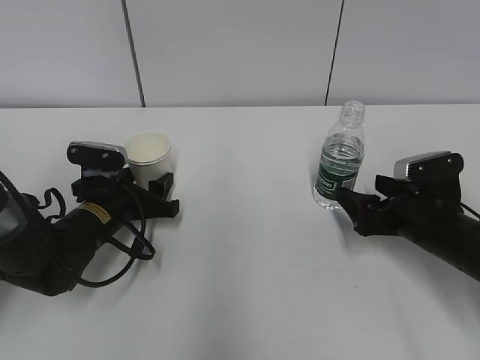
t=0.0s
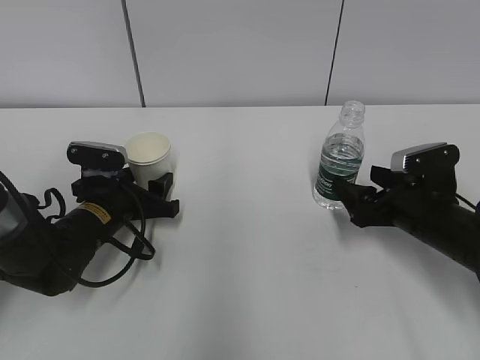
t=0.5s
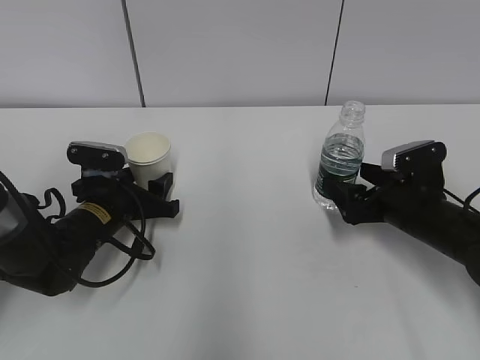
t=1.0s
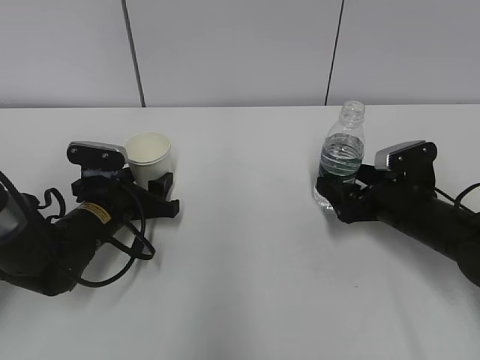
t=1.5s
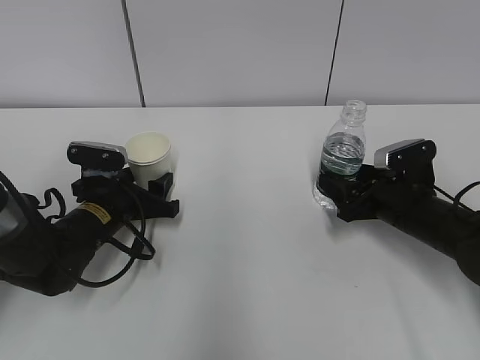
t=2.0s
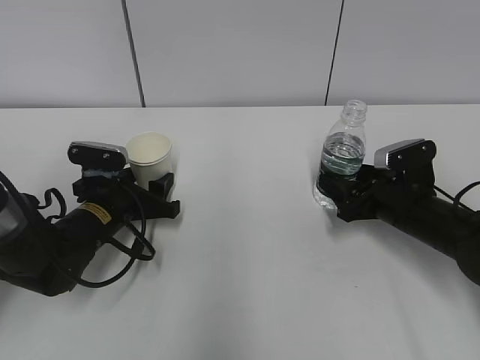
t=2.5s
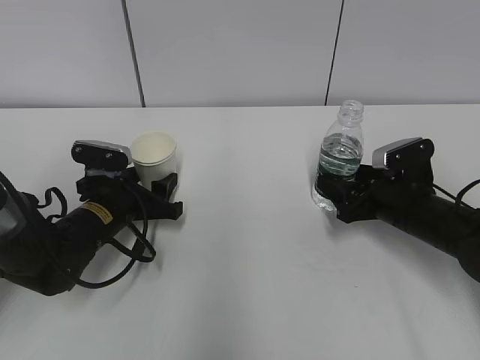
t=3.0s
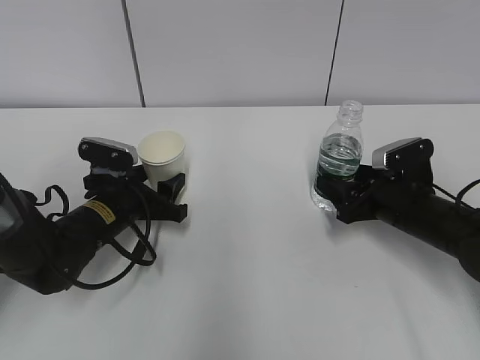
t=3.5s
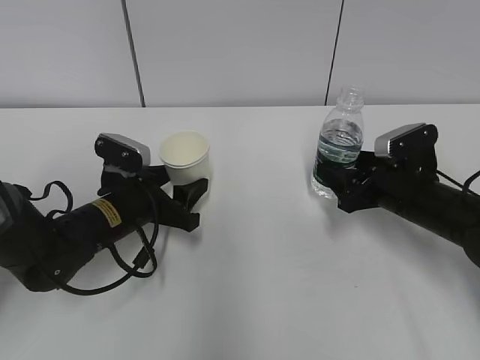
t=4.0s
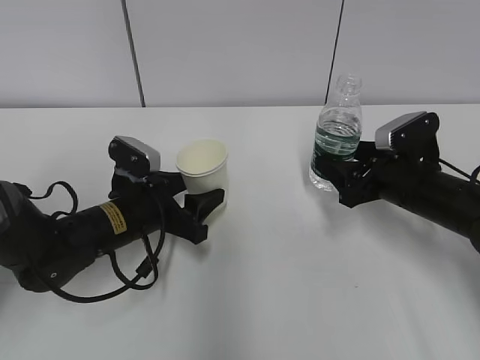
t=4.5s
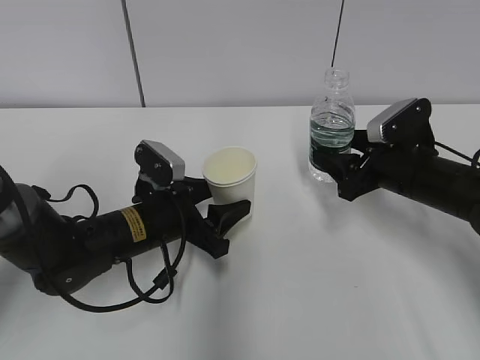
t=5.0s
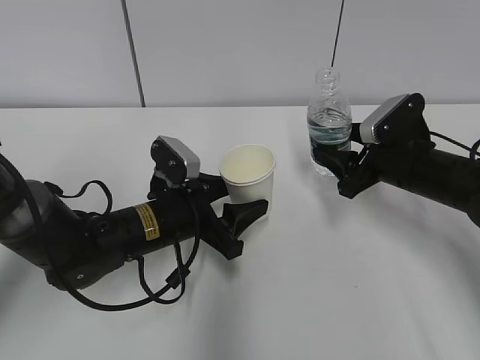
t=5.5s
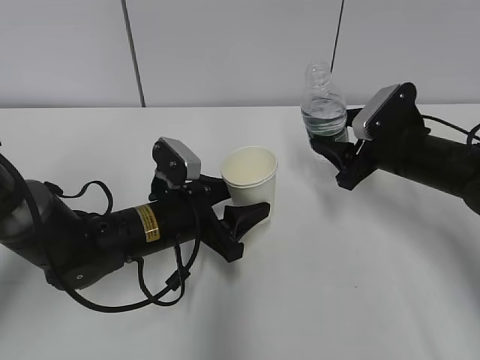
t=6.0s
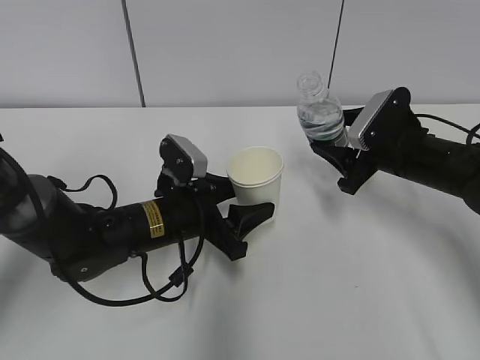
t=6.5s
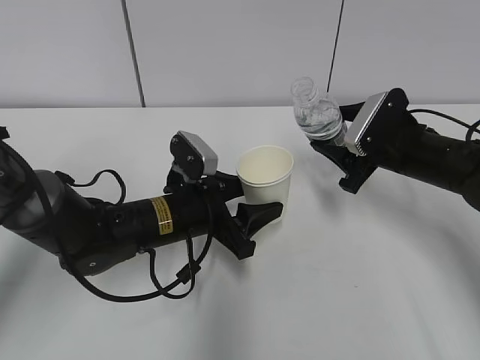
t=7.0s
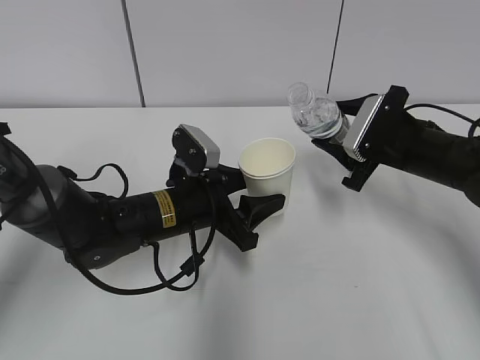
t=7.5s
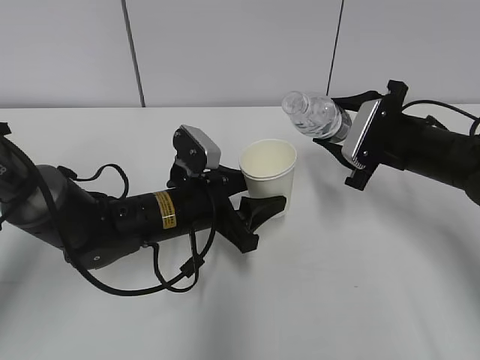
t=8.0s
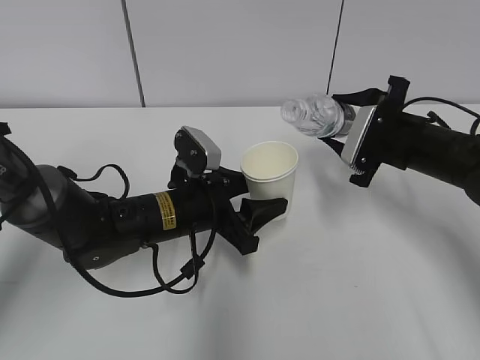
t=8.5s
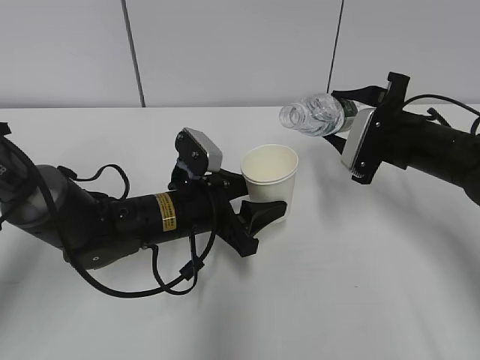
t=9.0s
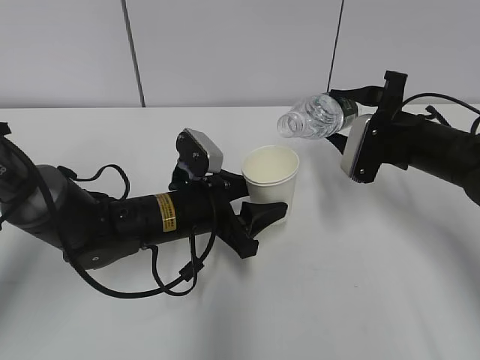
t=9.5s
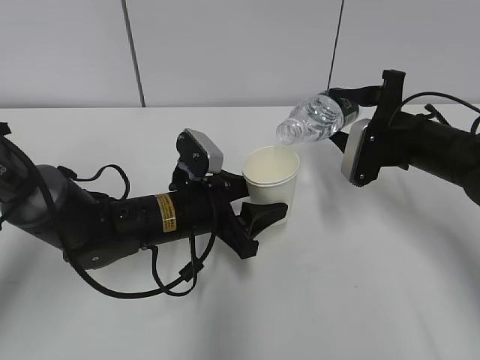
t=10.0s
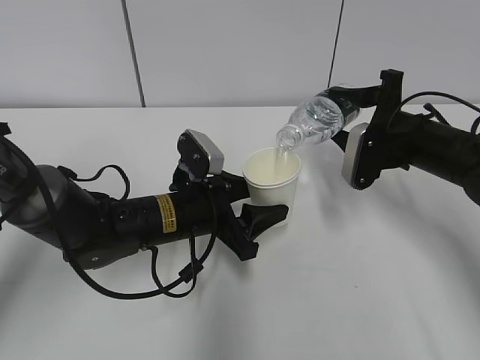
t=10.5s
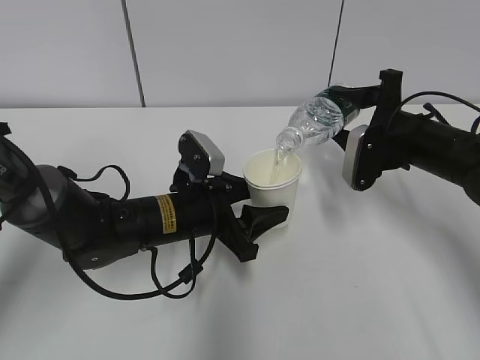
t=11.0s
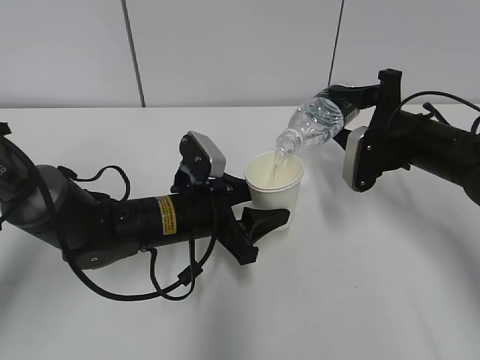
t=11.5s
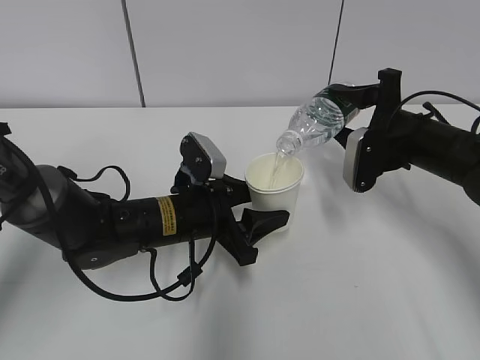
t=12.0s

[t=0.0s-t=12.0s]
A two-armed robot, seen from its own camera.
Step, t=1.5s to t=6.5s: Lift the paper cup with the left hand.
Step, t=7.0s to t=9.0s: Fill water with the left hand.
Step, t=7.0s to t=9.0s: Pour water with the right hand.
Step, t=9.5s to t=11.0s: Collect water with the right hand.
t=0.0s to t=2.0s: The right gripper closes its fingers.
t=2.0s to t=4.0s: The grippers move only a little.
t=4.0s to t=6.0s: The right gripper changes place by roughly 5 cm; the left gripper moves to the right, roughly 5 cm.
t=10.0s to t=12.0s: The grippers move only a little.

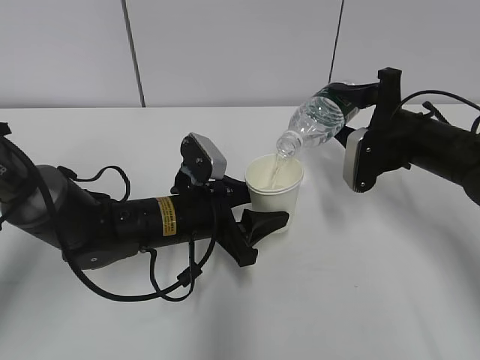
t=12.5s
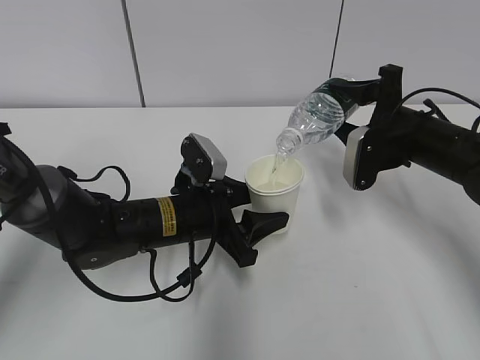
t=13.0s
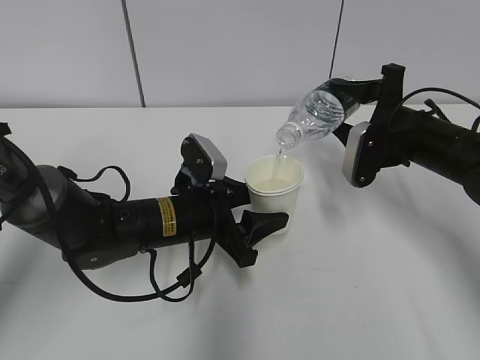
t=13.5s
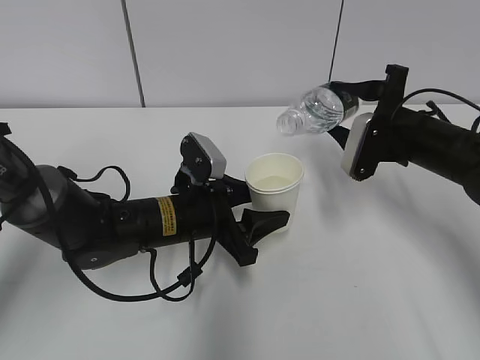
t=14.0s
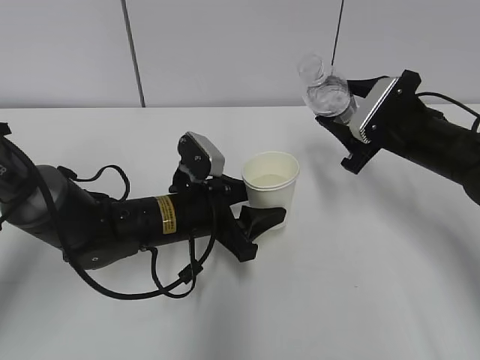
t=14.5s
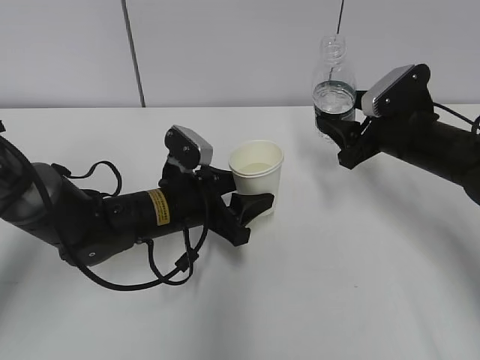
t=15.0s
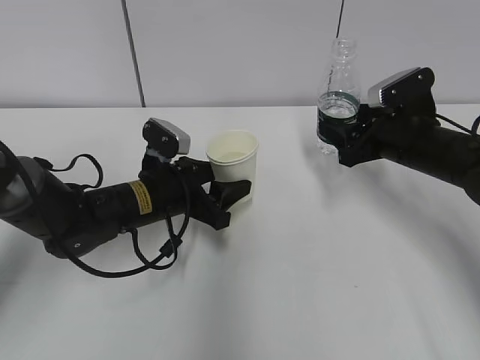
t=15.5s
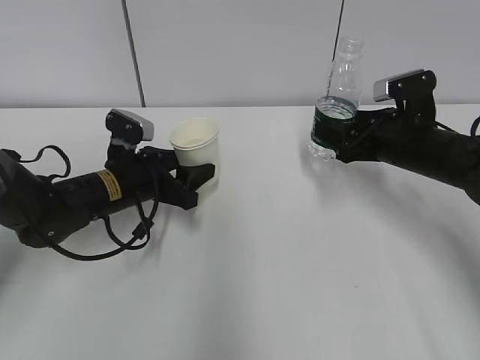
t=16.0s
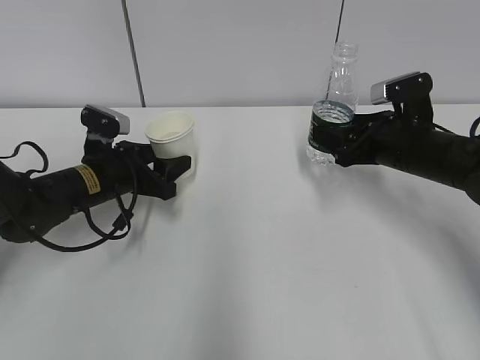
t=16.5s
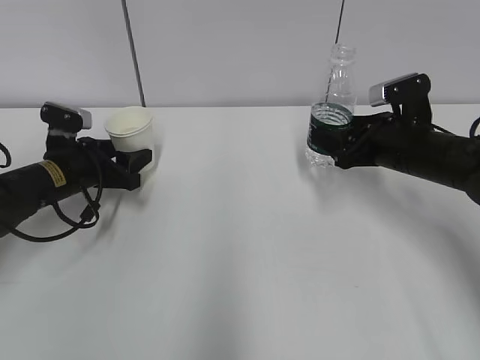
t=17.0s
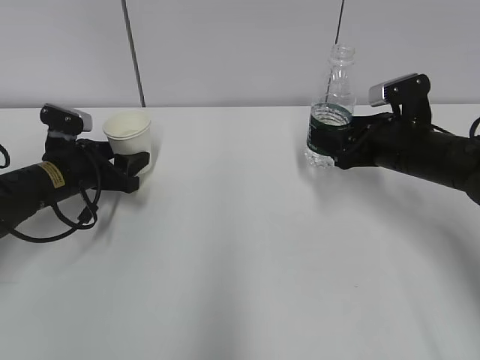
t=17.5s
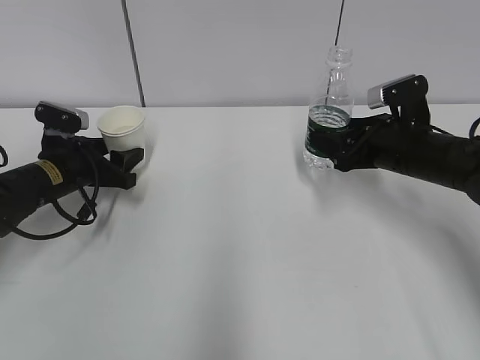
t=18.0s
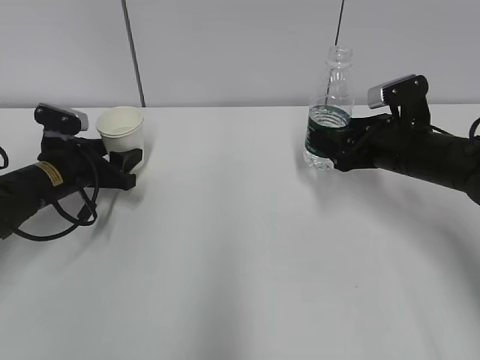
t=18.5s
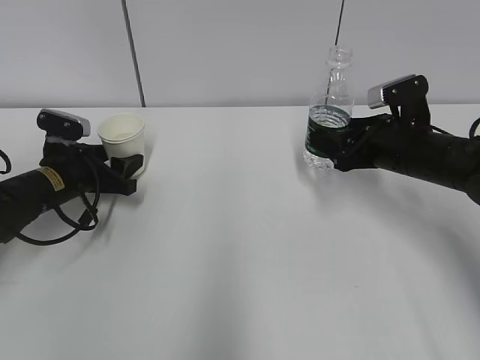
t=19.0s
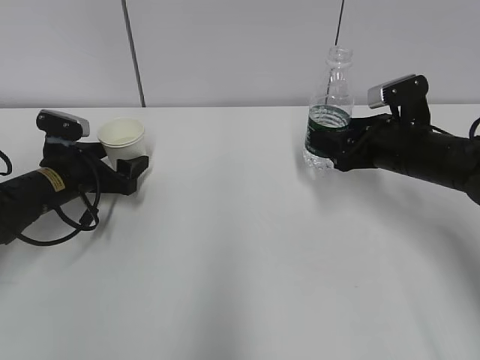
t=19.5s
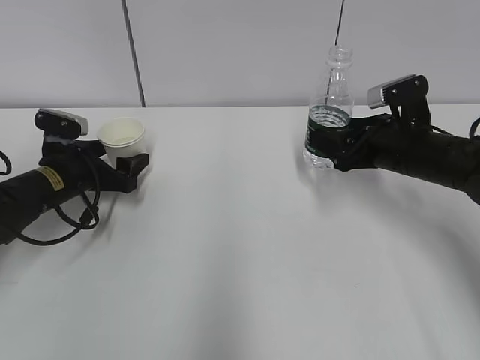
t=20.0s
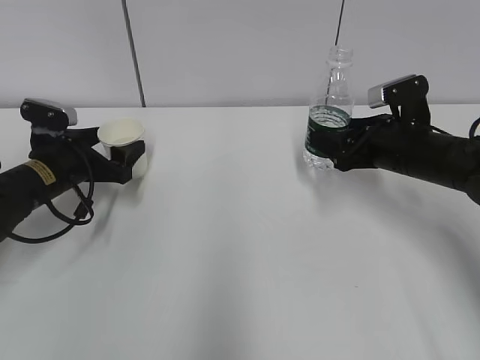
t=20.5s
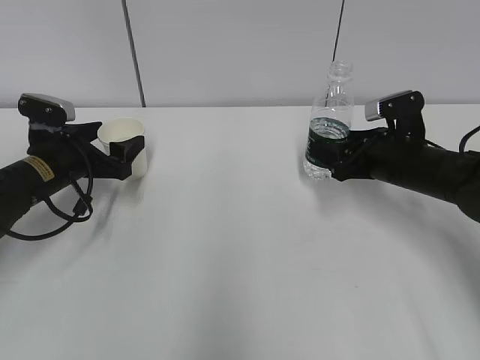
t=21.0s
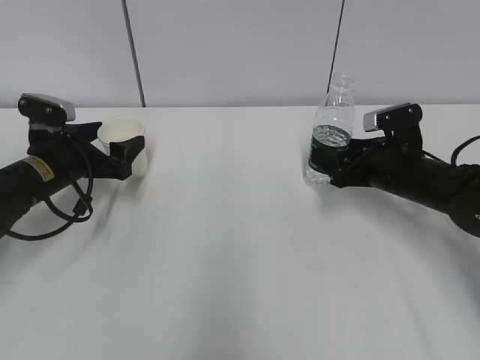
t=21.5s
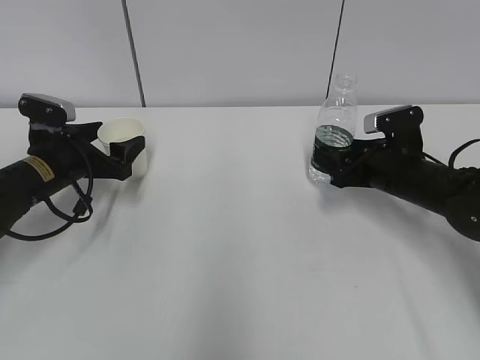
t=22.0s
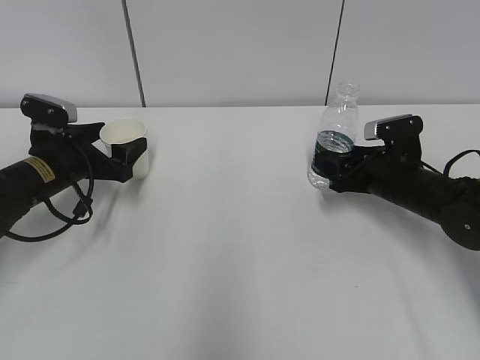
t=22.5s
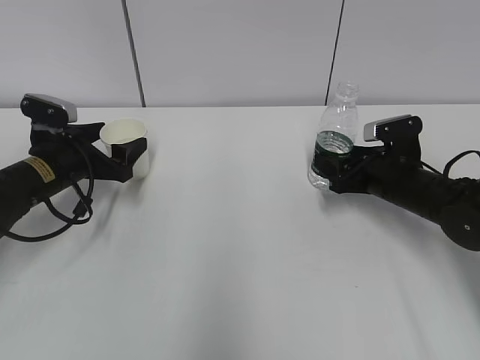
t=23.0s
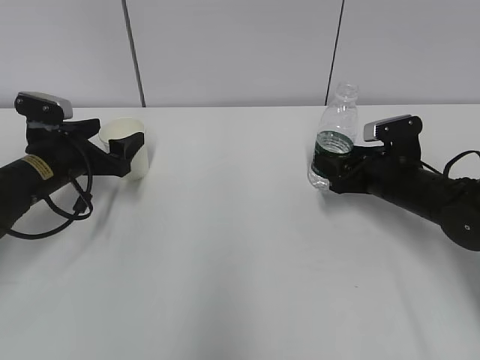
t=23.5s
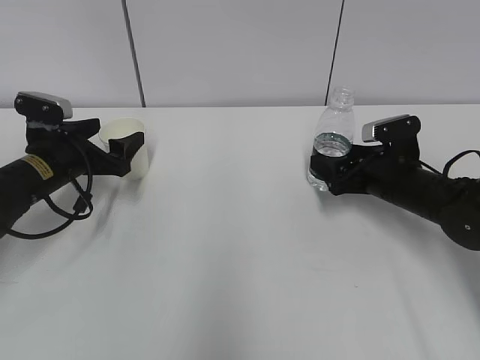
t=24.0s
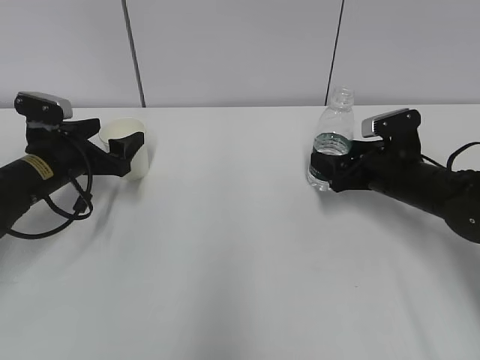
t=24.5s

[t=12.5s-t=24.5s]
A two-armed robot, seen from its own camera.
t=14.5s to t=16.5s: The left gripper moves to the left and forward, roughly 15 cm.
t=16.5s to t=18.5s: The left gripper shifts roughly 5 cm to the left.
t=18.5s to t=20.5s: The left gripper opens its fingers.
t=20.5s to t=22.5s: The right gripper travels downward by approximately 5 cm.
t=22.5s to t=24.5s: The right gripper opens up.

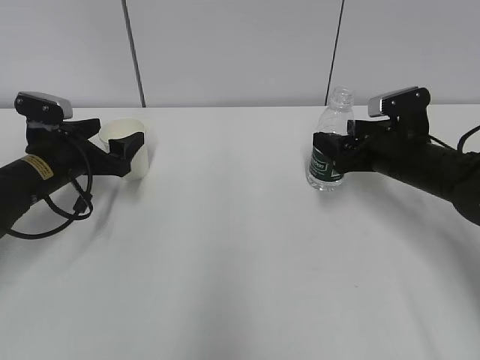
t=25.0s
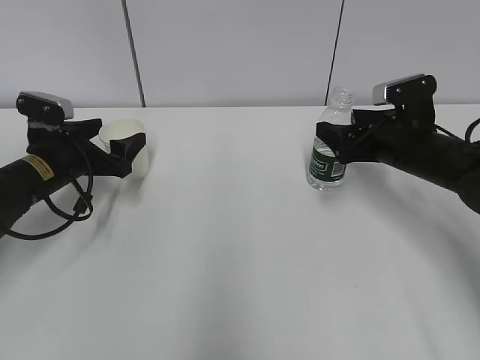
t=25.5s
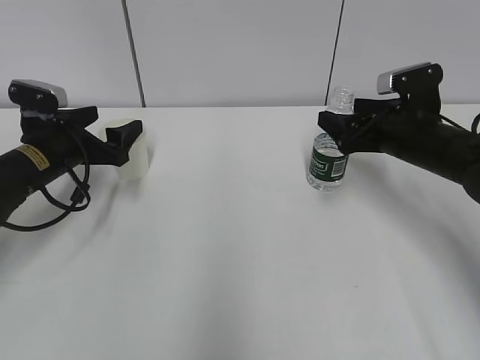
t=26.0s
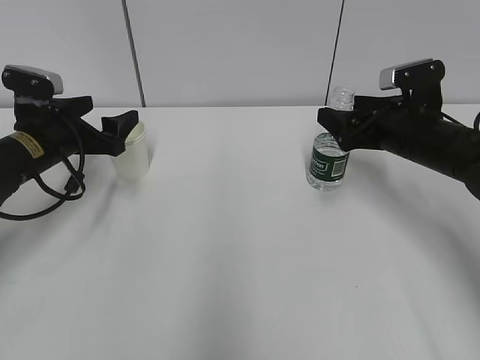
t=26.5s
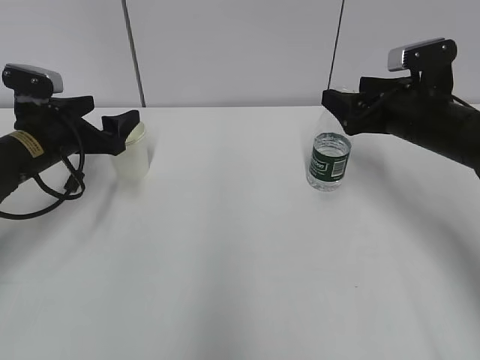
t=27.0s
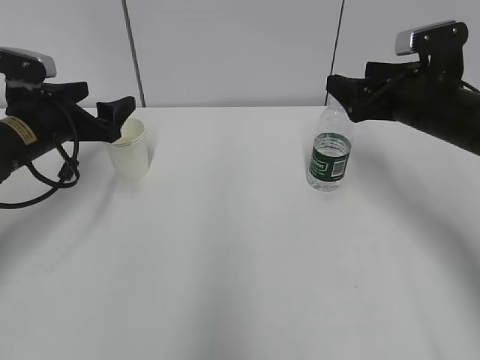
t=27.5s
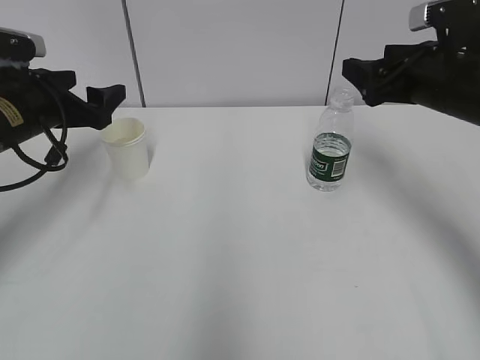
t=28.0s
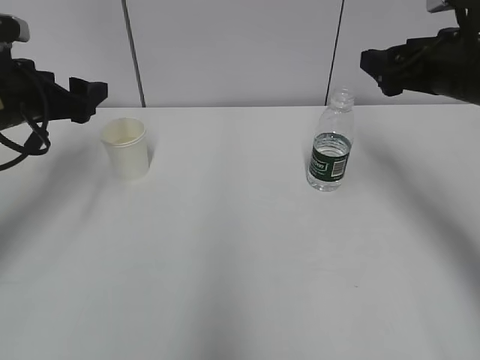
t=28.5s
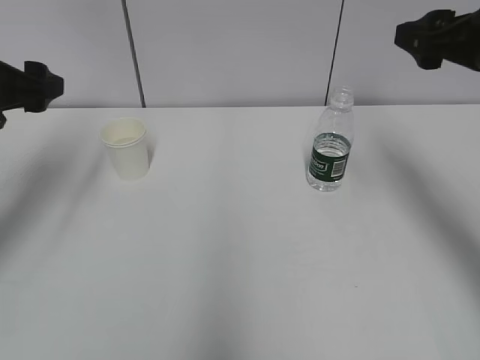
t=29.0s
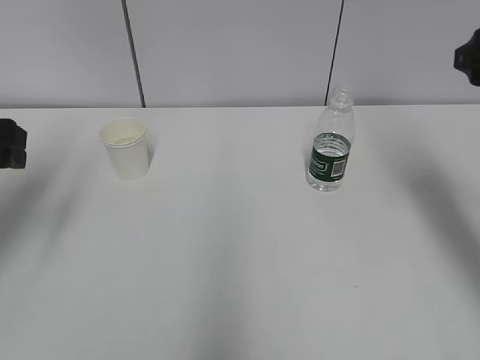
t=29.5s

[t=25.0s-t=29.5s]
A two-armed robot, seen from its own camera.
t=25.0s to t=27.0s: The right gripper shifts approximately 5 cm upward.
t=27.0s to t=29.5s: The right gripper heads upward, backward and to the right, covering roughly 15 cm; the left gripper heads upward and backward, covering some 15 cm.
